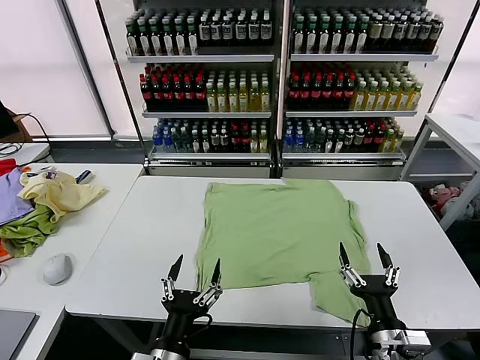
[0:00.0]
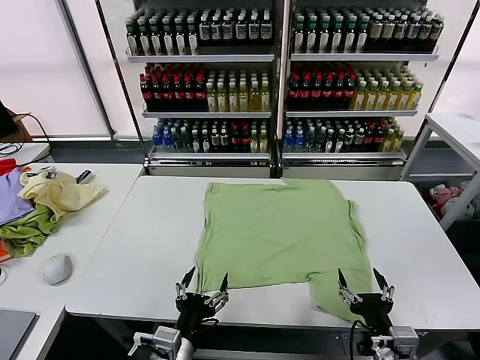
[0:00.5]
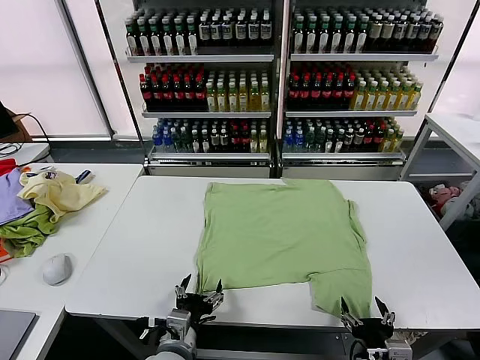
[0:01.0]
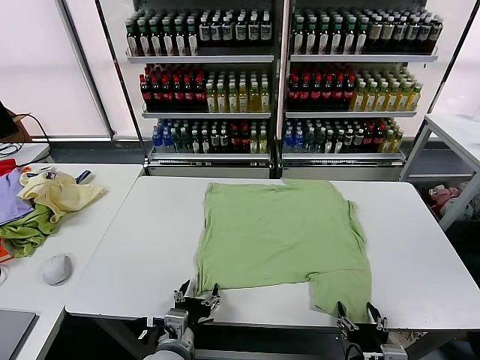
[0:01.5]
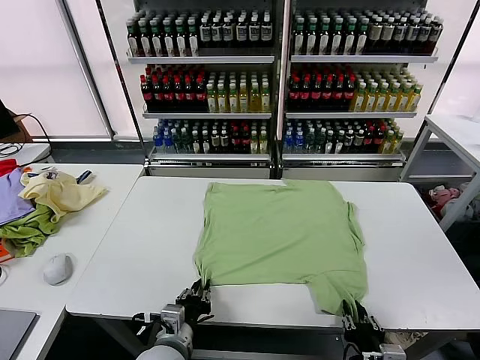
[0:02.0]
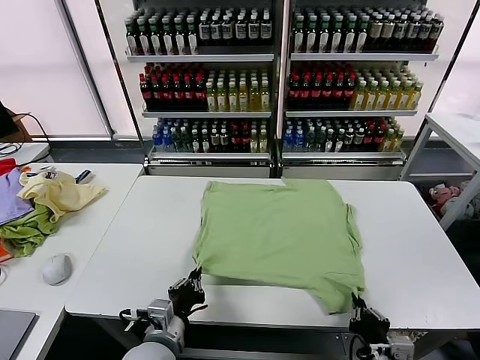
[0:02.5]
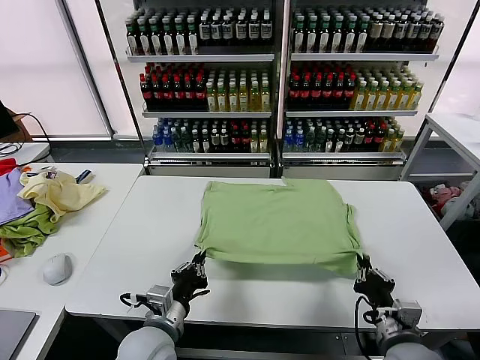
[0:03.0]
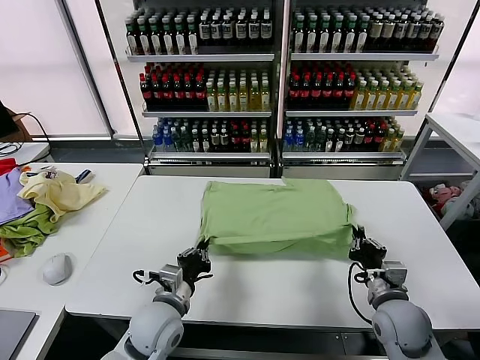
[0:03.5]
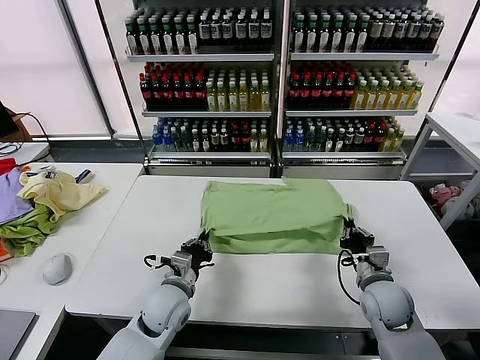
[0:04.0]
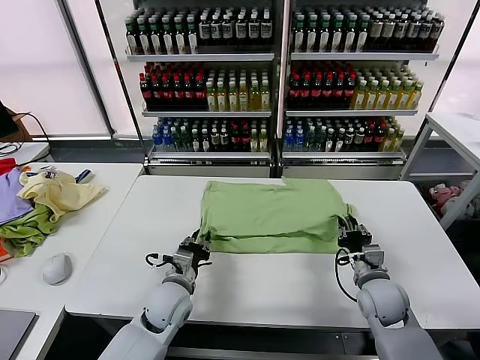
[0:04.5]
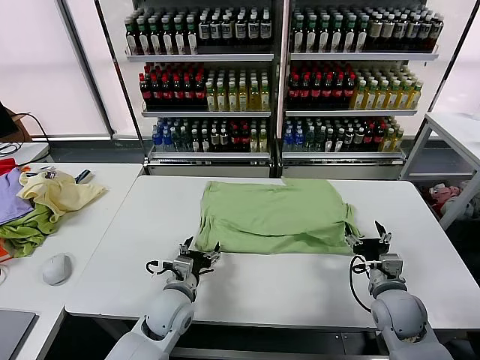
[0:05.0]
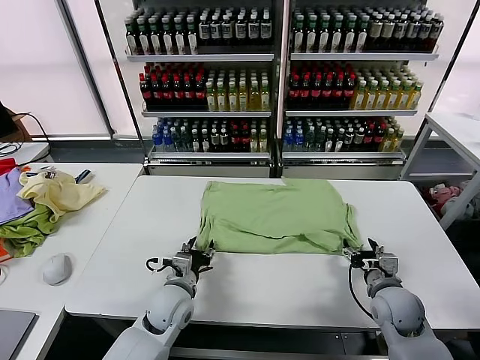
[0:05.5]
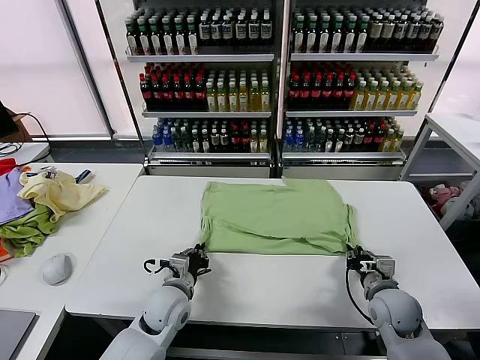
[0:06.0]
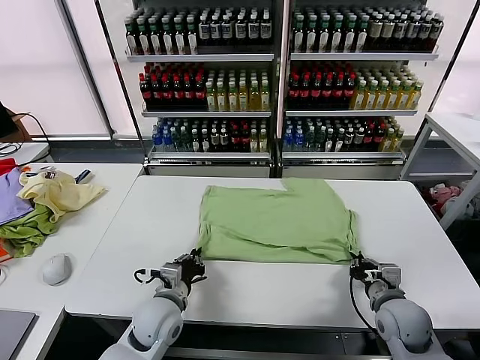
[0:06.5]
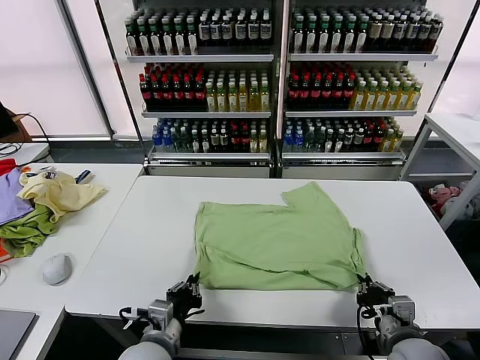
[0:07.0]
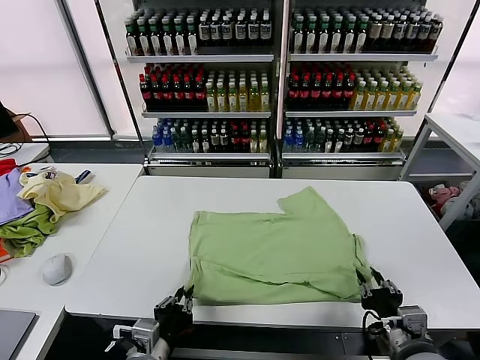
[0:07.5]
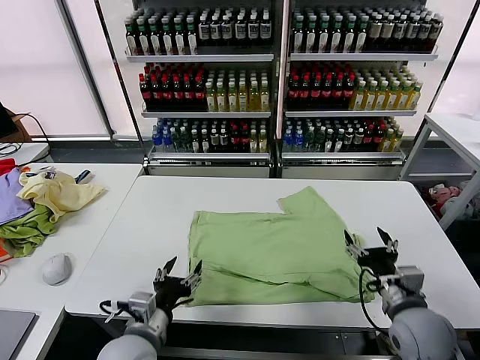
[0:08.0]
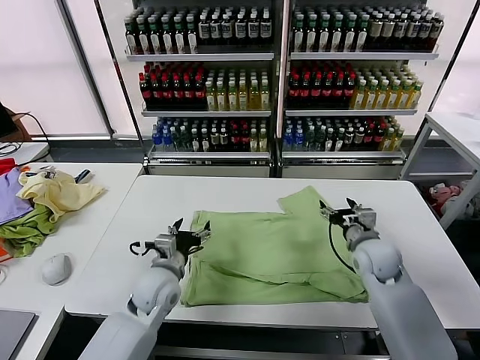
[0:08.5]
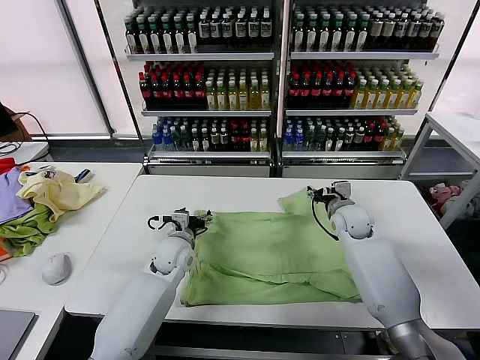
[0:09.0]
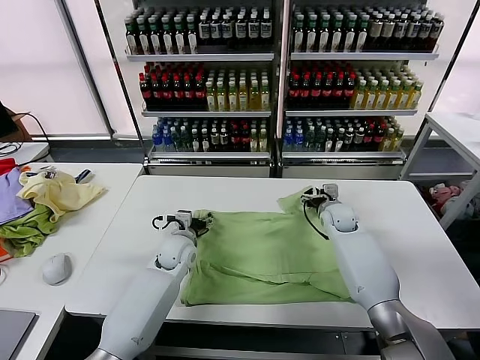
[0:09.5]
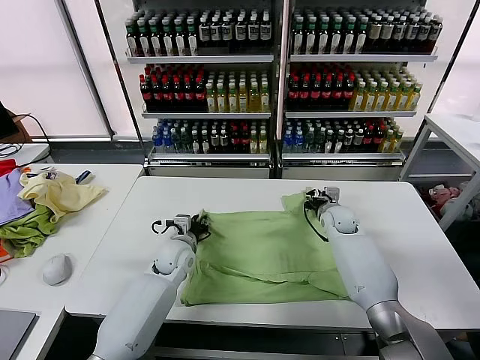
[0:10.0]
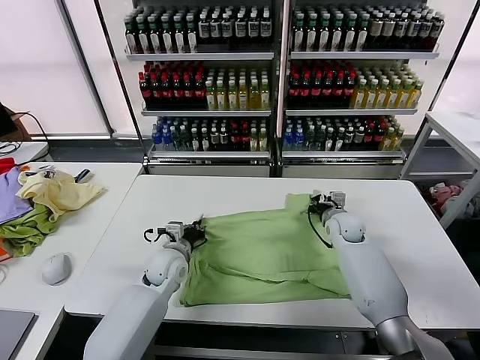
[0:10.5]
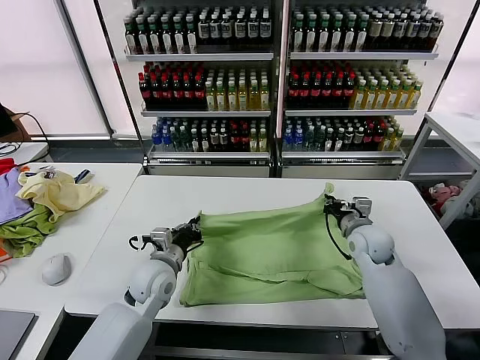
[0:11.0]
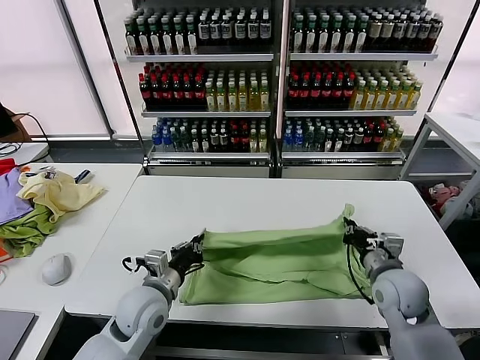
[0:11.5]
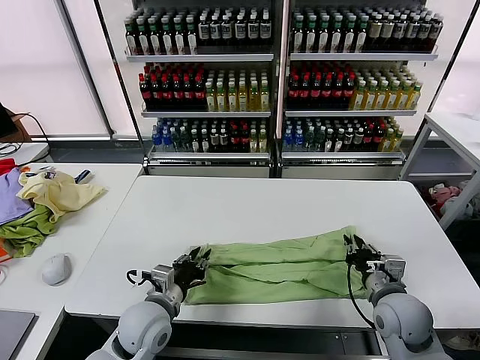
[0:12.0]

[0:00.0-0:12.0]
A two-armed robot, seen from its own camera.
Task of the whole recording: fold and organize the clothes.
Step, 0:00.0 to 0:02.0: use both grippers simultaneously to clamp the lower edge of the clothing fabric.
Step, 0:02.5 to 0:04.5: use both grippers to drag the lower edge of the fabric forward and fold it over the upper edge.
Step, 0:05.0 to 0:07.5: Drag the clothes downward with both gripper.
Step, 0:08.0 to 0:10.0: use both grippers simultaneously to clamp the upper edge of the clothing fabric.
0:02.0 to 0:04.0: The right gripper moves forward, about 20 cm. The left gripper moves forward, roughly 10 cm.
0:04.0 to 0:06.0: The right gripper opens, then closes once more. The left gripper opens, then closes again.
0:06.0 to 0:08.0: The right gripper is displaced upward by about 5 cm, travels backward and back again, some 15 cm each way, and opens its fingers. The left gripper travels backward and upward by about 15 cm, and opens up.
0:08.0 to 0:10.0: Both grippers move forward, roughly 25 cm. The left gripper closes its fingers, while the right gripper closes up.
0:10.0 to 0:12.0: The right gripper travels backward by some 30 cm. Meanwhile the left gripper shifts approximately 20 cm backward.

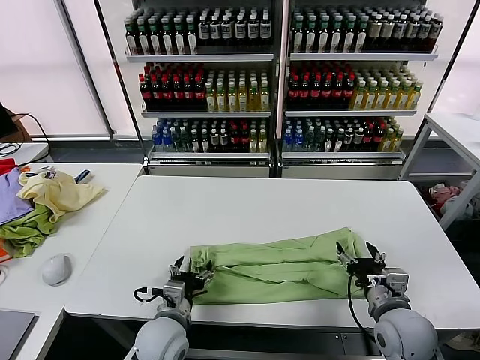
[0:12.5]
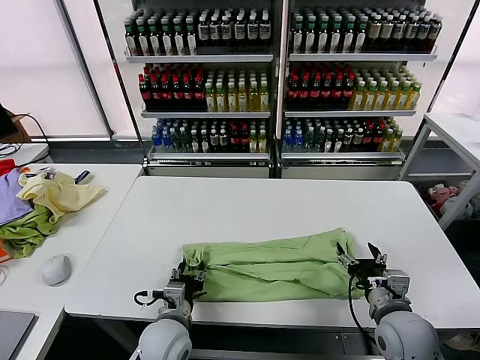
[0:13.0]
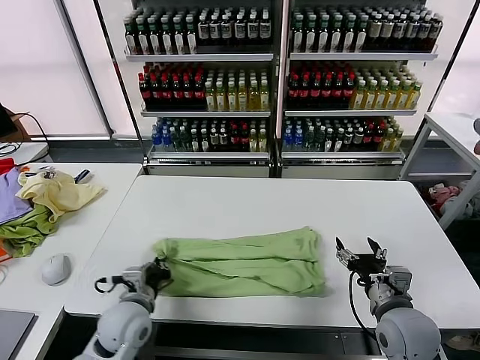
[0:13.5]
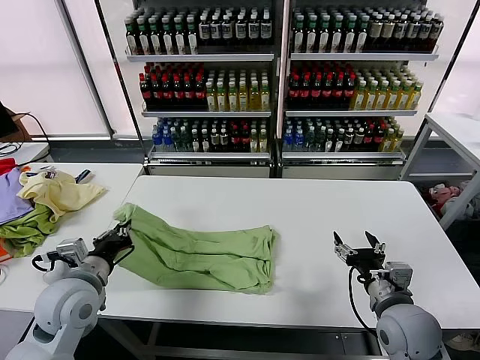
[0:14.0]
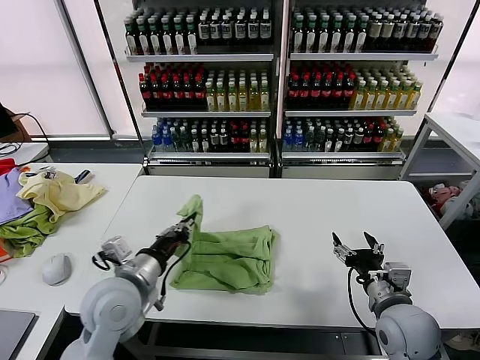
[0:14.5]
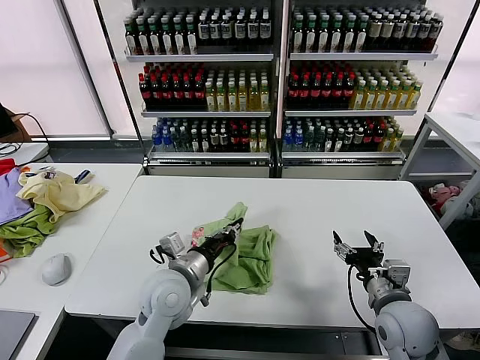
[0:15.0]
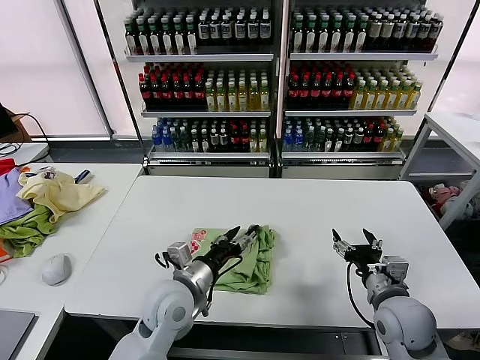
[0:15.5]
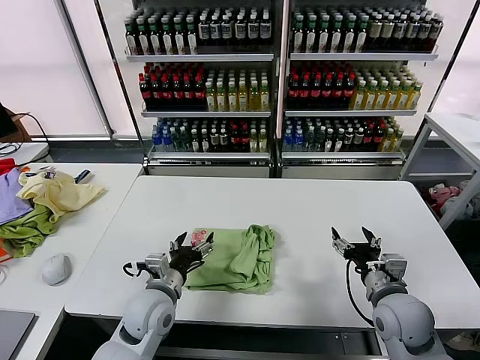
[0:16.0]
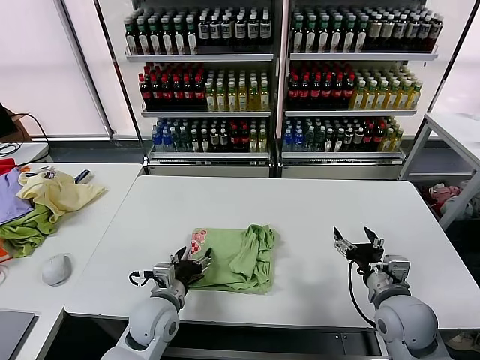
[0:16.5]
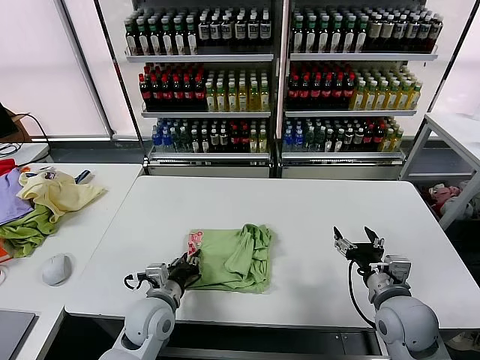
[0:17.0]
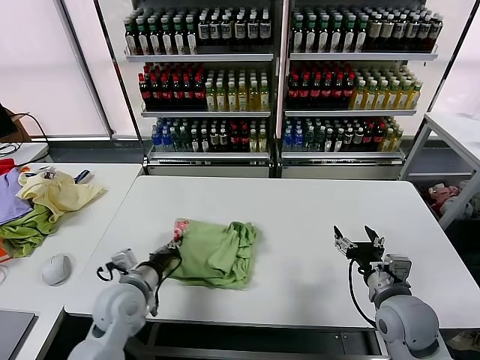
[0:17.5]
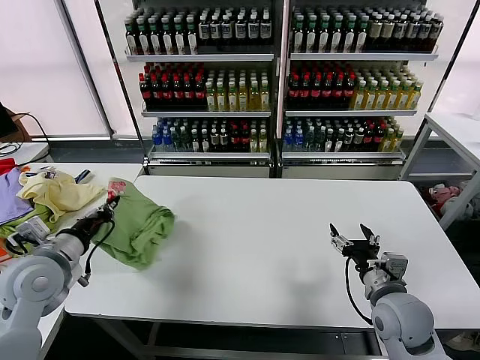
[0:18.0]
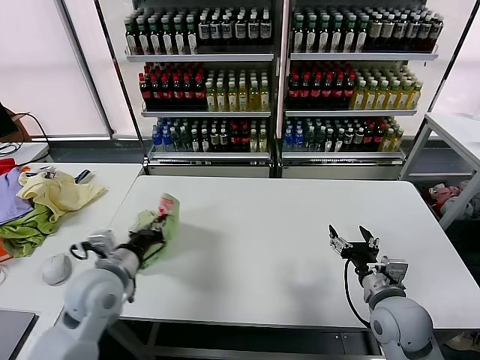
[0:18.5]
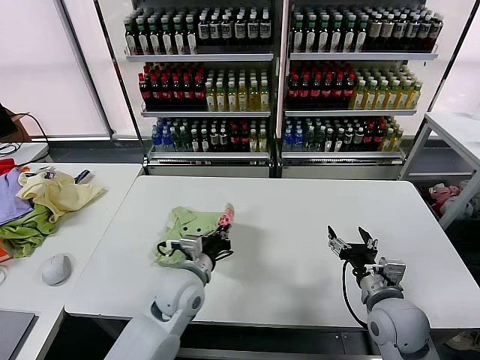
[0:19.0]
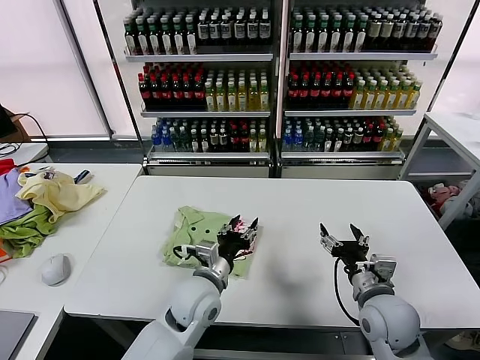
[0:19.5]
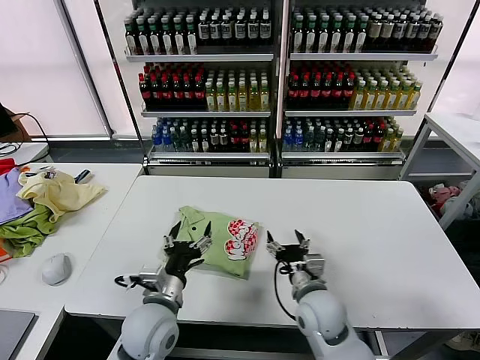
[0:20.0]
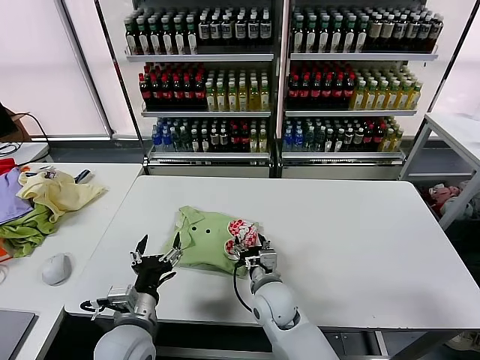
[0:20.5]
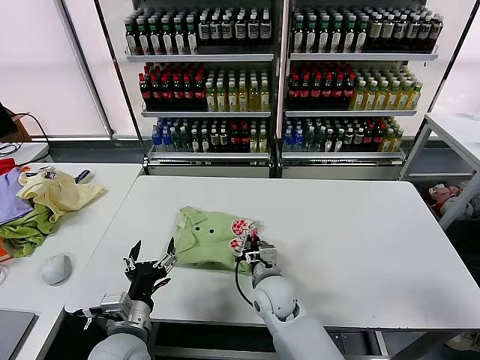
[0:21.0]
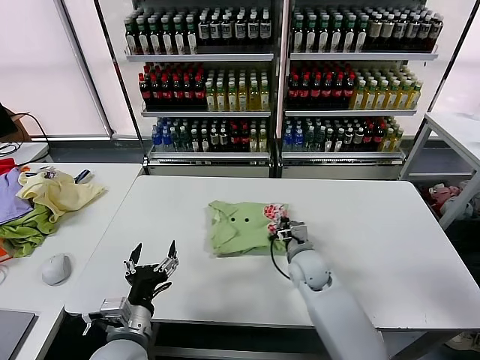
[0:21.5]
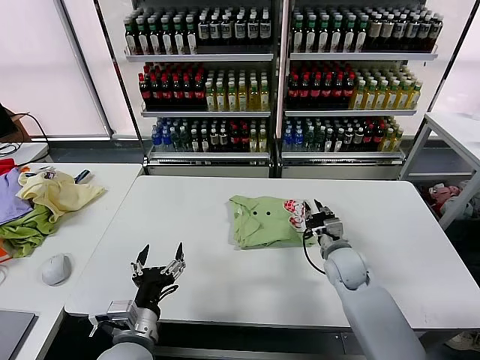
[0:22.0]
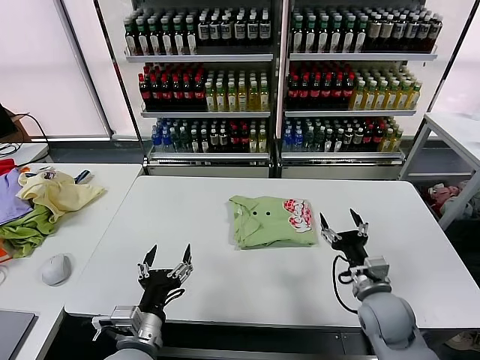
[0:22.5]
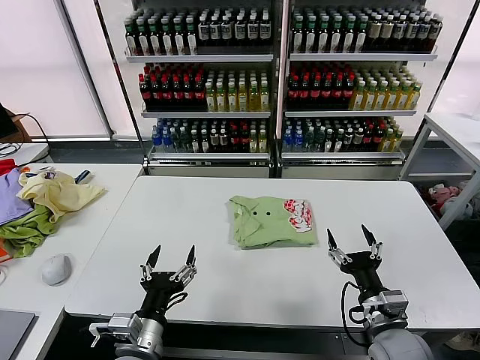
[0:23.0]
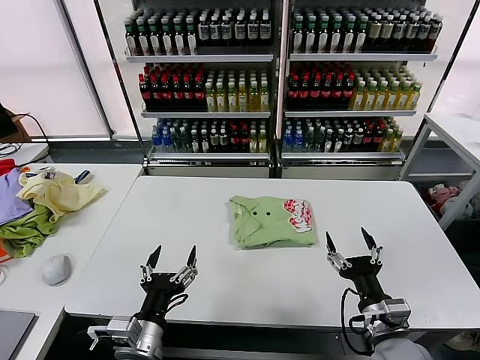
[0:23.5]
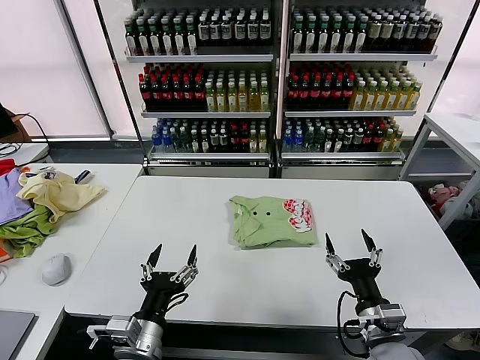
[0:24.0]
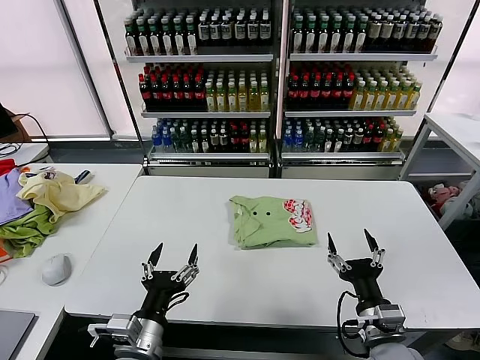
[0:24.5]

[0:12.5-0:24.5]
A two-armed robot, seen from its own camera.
Task of the whole recording: fold and organize the clothes.
Step, 0:13.5 to 0:15.0: use the left gripper to drag the left edge of the fabric to the left and folds it over the right edge.
Step, 0:16.0 to 0:19.0: Flip the folded clothes over with left gripper.
Step, 0:19.5 to 0:22.0: Drag the clothes to the center of the table.
0:12.5 to 0:14.5: The left gripper travels upward and to the left by approximately 15 cm, and closes its fingers.
0:14.5 to 0:16.5: The left gripper goes about 15 cm downward, and opens.
0:16.5 to 0:18.5: The left gripper travels upward and to the left by some 15 cm, and closes.
0:18.5 to 0:20.5: The left gripper travels to the right, backward and downward by about 15 cm, and opens up. Meanwhile the right gripper goes about 20 cm to the left.
0:20.5 to 0:22.5: The right gripper travels to the right by approximately 20 cm, and closes and opens again.
0:22.5 to 0:24.5: The right gripper travels backward by some 10 cm.
